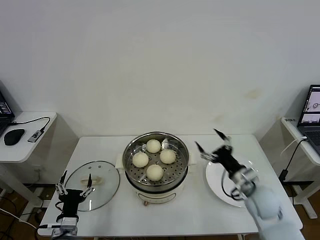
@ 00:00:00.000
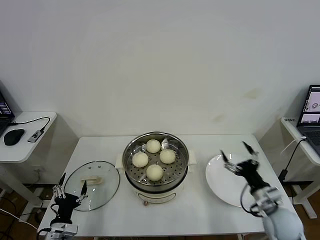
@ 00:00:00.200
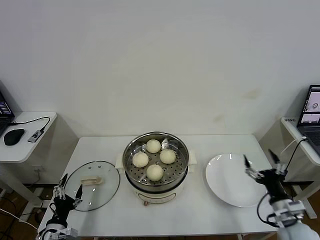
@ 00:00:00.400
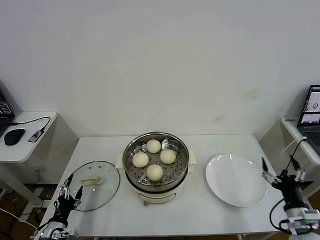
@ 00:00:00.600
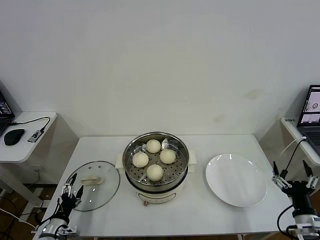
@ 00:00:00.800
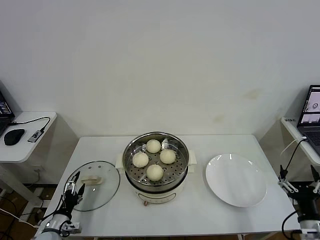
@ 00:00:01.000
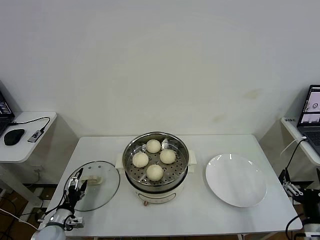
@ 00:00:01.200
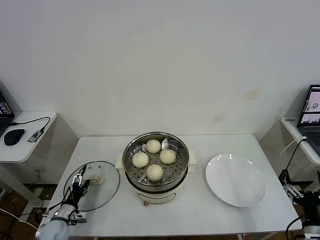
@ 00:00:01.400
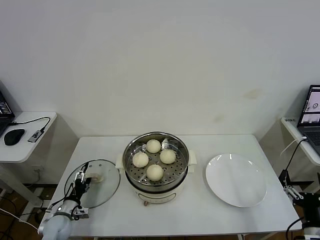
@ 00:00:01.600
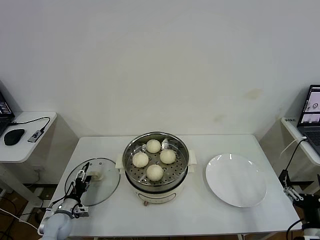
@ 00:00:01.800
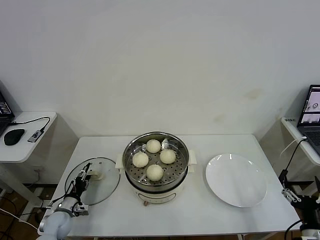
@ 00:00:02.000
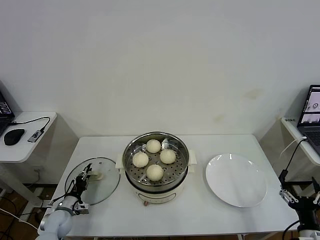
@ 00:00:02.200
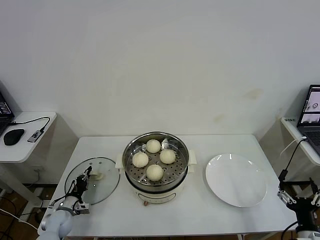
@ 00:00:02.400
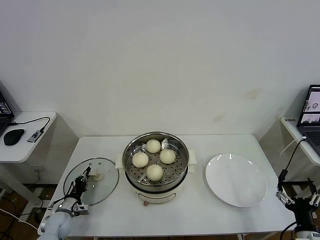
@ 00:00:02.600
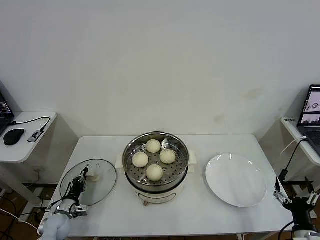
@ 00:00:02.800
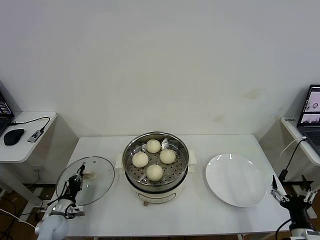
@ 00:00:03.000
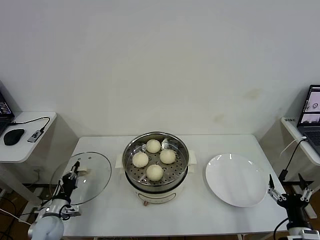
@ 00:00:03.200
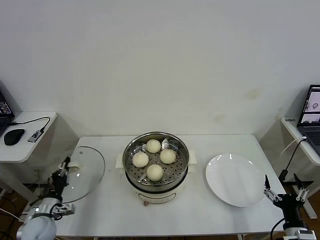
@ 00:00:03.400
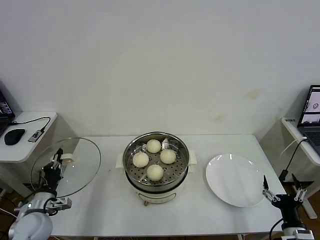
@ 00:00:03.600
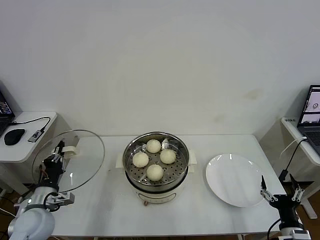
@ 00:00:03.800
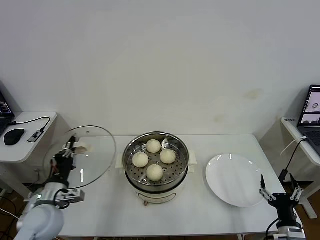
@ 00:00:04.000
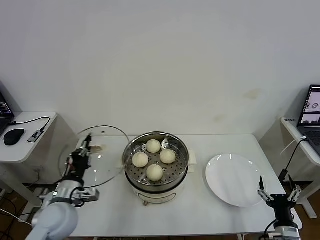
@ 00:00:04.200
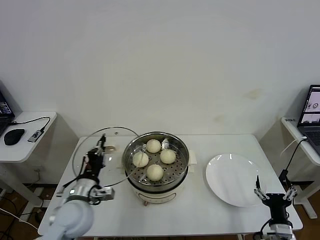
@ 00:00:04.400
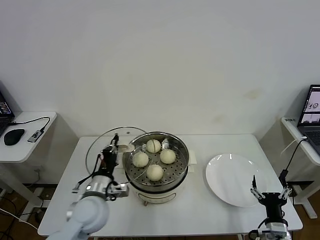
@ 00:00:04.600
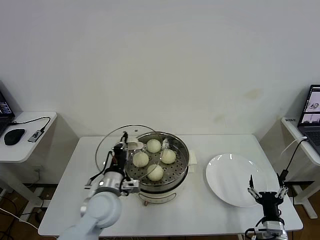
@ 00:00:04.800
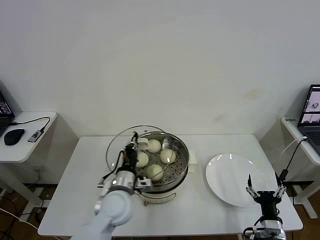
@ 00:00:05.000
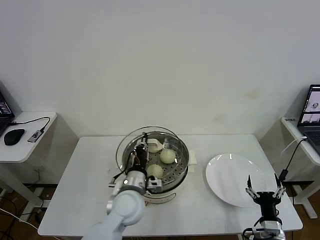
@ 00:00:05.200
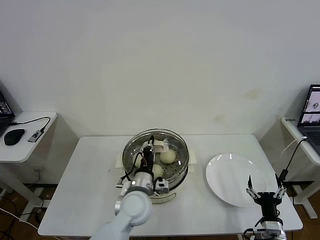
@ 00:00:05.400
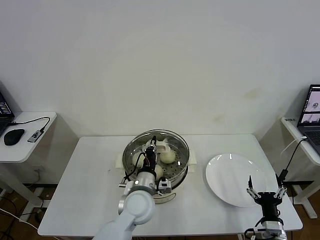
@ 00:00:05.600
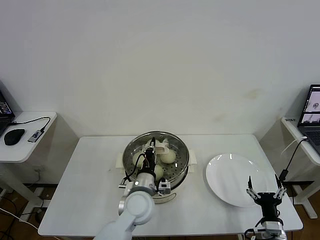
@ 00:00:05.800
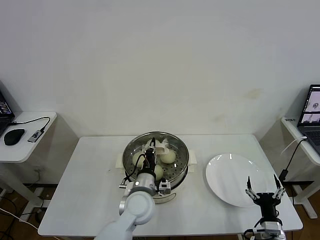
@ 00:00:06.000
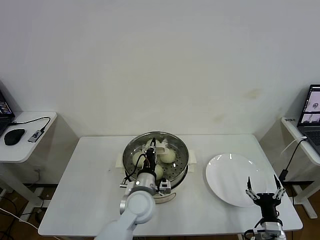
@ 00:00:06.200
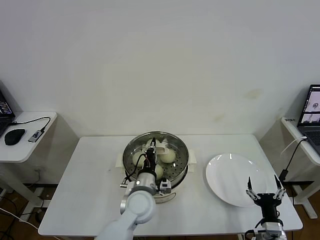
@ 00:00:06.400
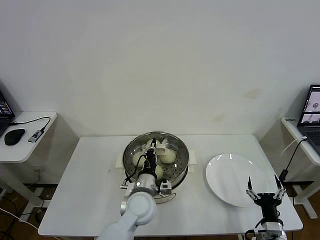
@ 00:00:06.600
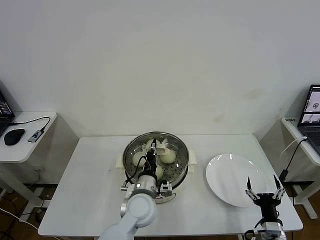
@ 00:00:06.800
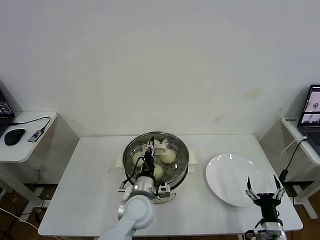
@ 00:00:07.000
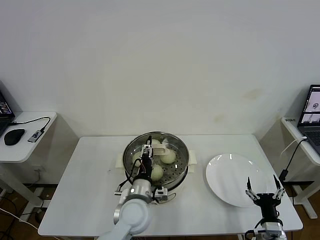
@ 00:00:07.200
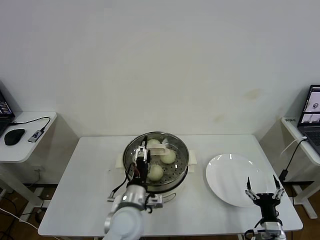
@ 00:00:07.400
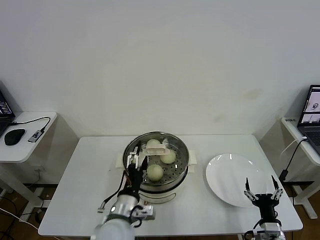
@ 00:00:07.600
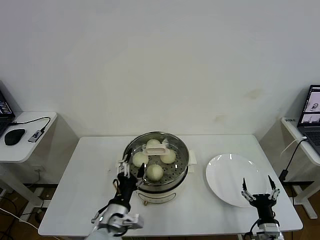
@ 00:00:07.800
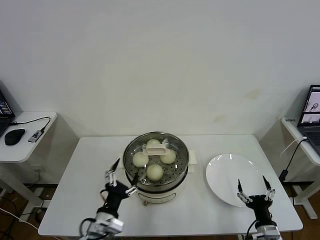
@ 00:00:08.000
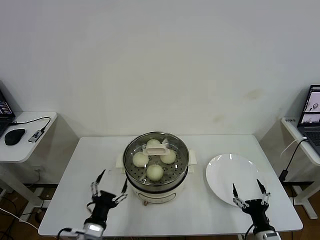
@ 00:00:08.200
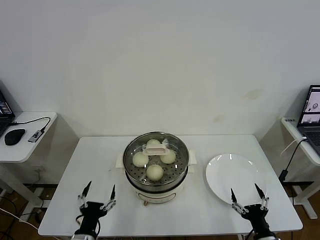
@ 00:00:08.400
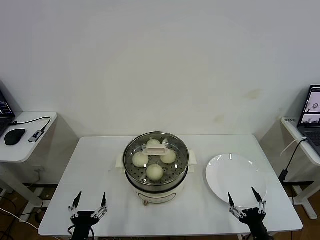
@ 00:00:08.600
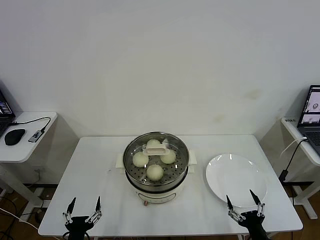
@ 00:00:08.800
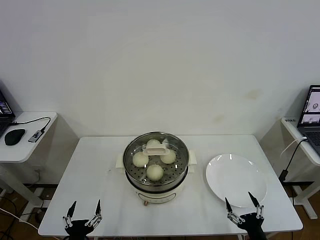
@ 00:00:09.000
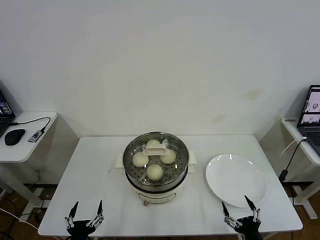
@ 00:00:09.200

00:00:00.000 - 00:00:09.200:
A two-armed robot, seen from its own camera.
Task of the whole recording: take steamed baozi put them in steamer then cover it.
Step, 00:00:00.000 - 00:00:02.800: Grasp the pot lid with left gripper.
Step, 00:00:03.000 - 00:00:07.600: Place the pot lid on the steamer with left gripper.
00:00:00.000 - 00:00:01.600: The right gripper is displaced backward and to the right by approximately 20 cm; the left gripper moves forward, to the left and downward, some 15 cm.
00:00:01.600 - 00:00:03.000: The left gripper closes its fingers.
00:00:03.000 - 00:00:04.600: The right gripper shifts roughly 5 cm to the left. The left gripper travels upward and to the right by about 30 cm.
00:00:04.600 - 00:00:06.200: The left gripper travels to the right by roughly 15 cm.
00:00:06.200 - 00:00:07.600: The left gripper is displaced backward by roughly 10 cm, and opens up.
00:00:07.600 - 00:00:09.200: The left gripper goes some 25 cm to the left, backward and downward. The right gripper goes roughly 5 cm backward.
